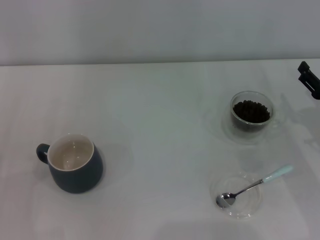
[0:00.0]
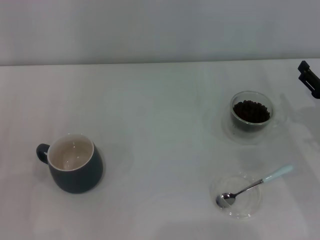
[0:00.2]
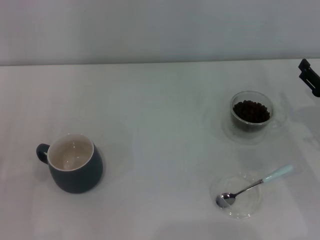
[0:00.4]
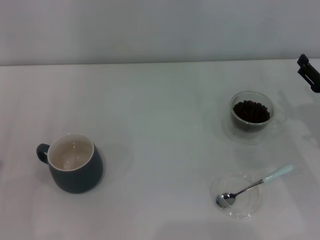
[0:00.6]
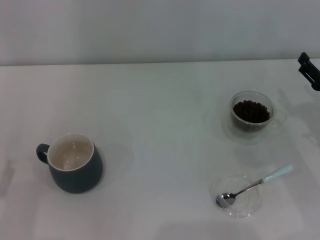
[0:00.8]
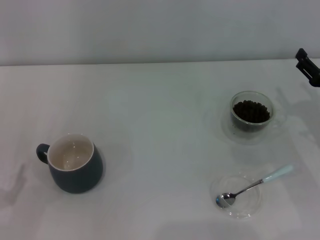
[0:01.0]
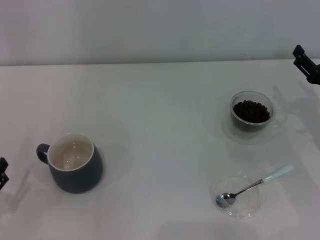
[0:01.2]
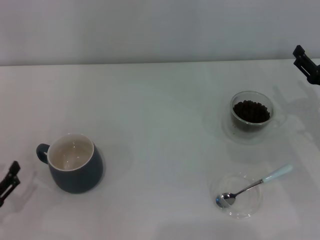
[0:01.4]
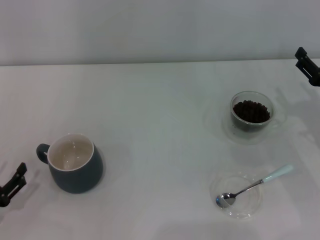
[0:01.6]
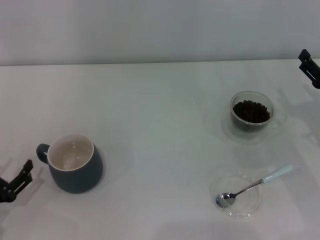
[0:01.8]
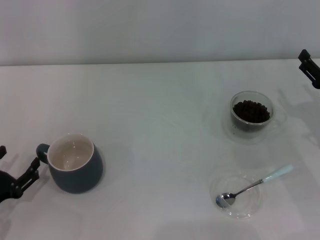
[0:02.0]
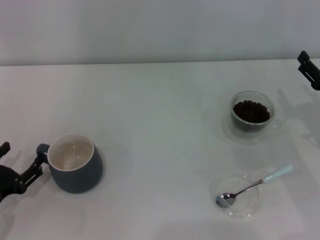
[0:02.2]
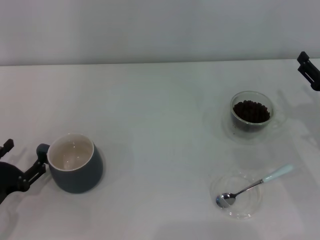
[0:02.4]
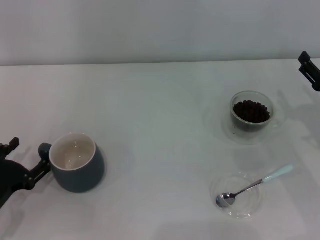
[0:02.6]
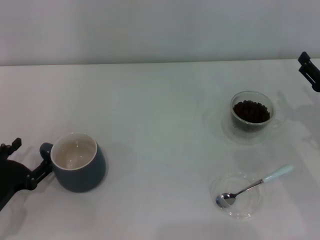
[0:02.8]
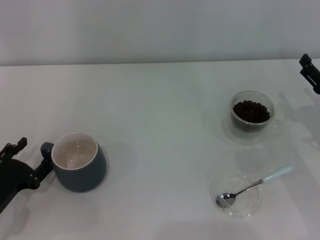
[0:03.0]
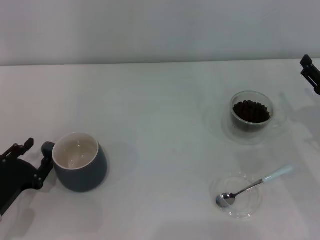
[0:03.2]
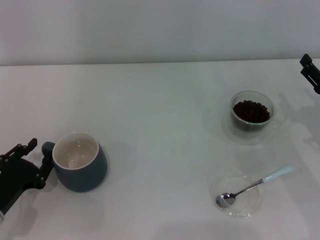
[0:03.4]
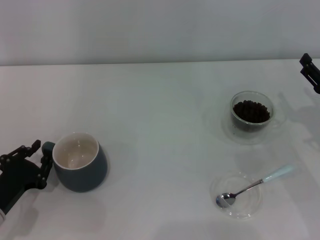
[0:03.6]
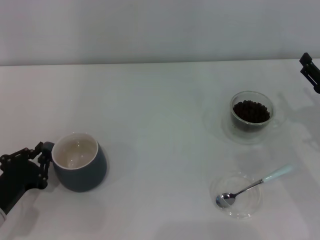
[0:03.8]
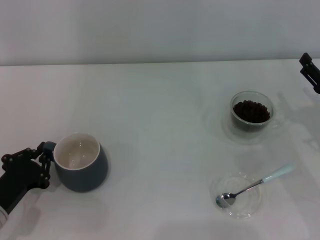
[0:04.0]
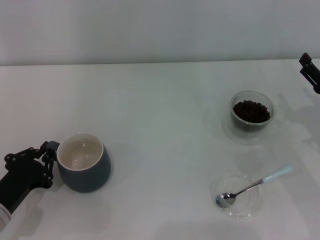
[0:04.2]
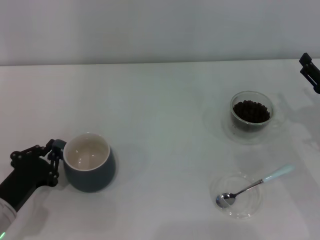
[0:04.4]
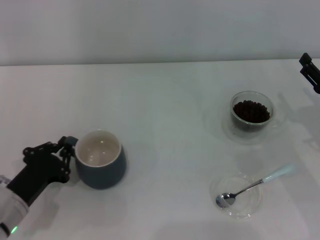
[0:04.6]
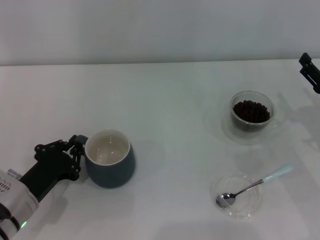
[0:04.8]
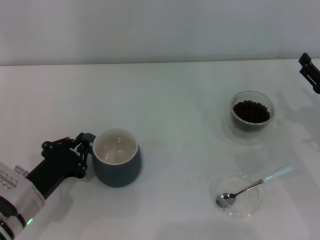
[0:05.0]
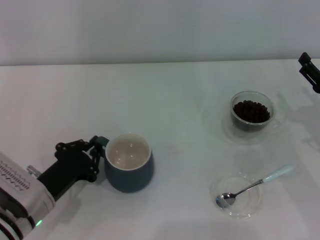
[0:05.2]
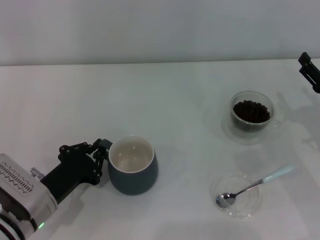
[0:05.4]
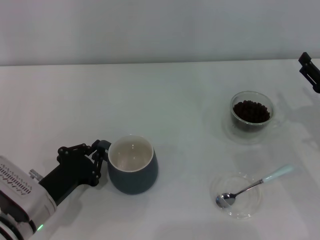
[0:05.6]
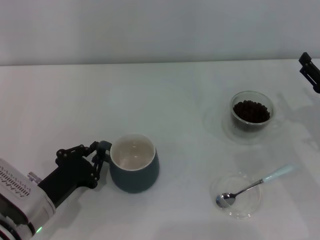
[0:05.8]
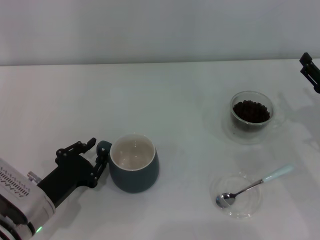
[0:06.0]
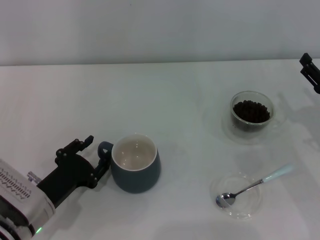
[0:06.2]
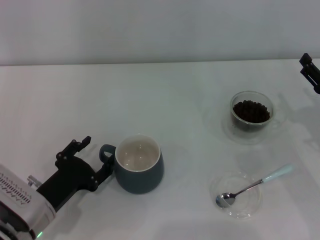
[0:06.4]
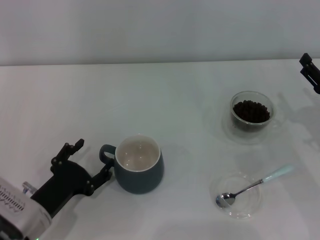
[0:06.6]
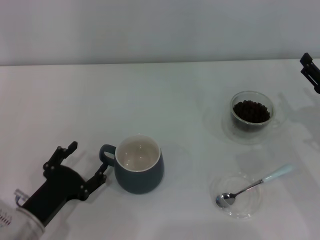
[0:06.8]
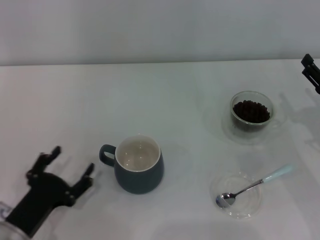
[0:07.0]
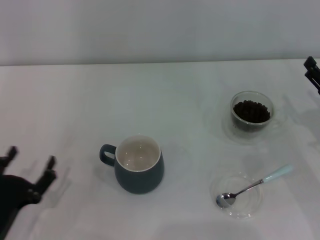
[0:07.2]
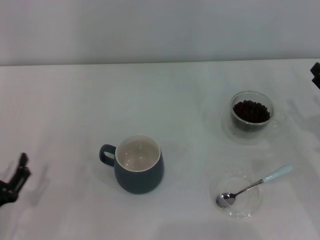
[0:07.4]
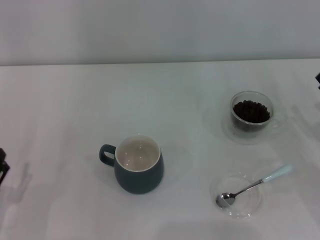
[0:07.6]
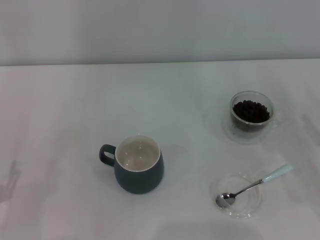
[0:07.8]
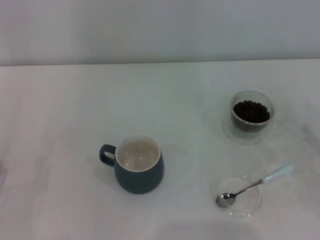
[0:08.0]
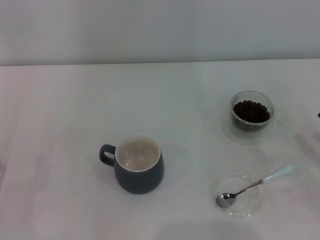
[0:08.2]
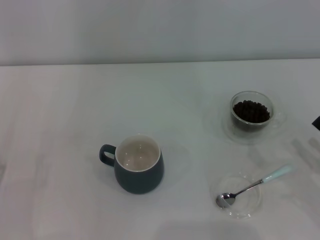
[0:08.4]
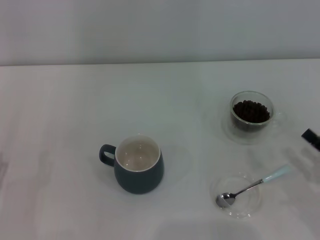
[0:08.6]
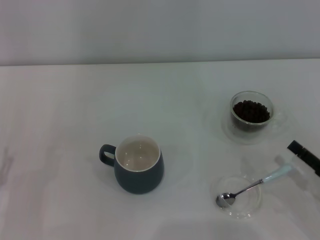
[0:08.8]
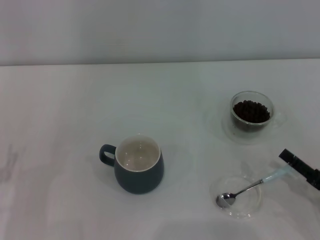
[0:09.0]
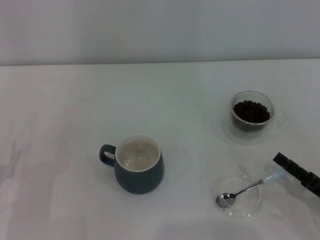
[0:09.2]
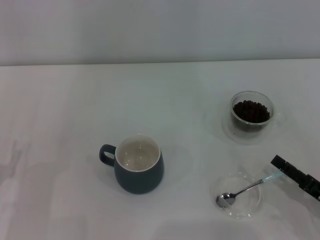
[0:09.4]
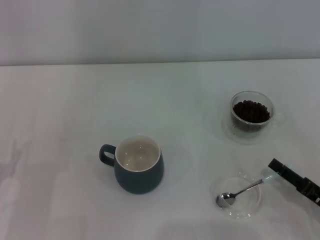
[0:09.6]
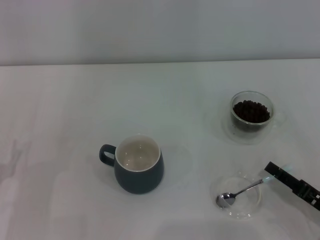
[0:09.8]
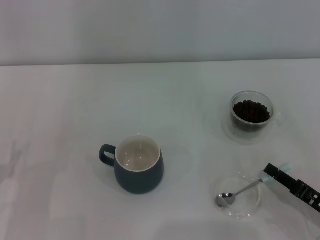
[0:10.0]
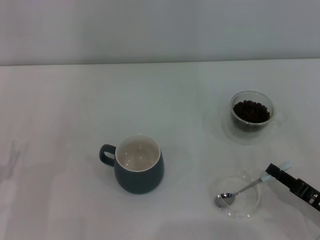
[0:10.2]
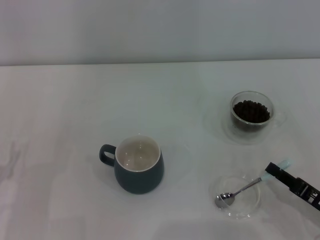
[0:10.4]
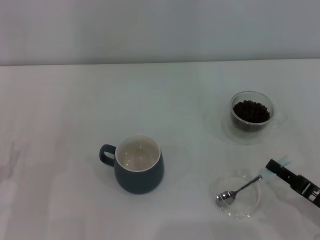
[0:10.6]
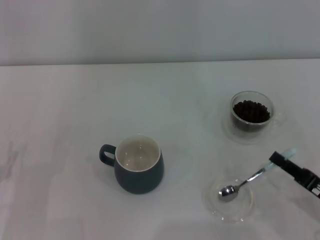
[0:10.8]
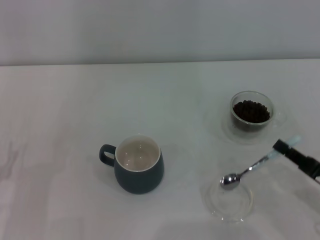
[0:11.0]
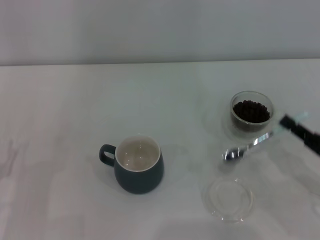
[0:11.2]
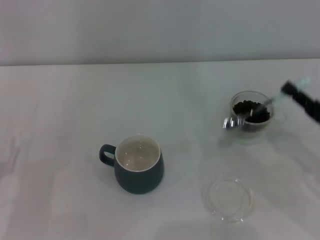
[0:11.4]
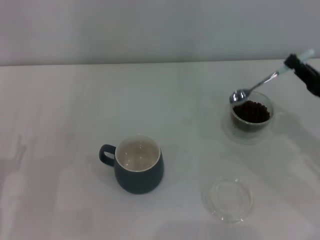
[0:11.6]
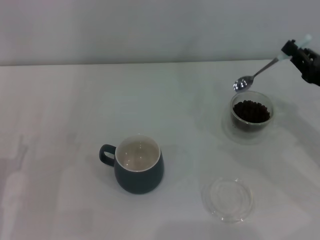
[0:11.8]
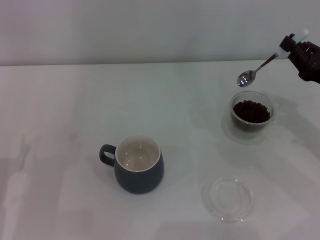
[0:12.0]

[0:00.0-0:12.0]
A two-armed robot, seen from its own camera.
Task of the whole recording: Use a blue spoon to take out the coffee beans from the glass and pour them into the gray cup.
Step, 0:00.0 to 0:06.8: Move the cup to the center of view with the left gripper.
Step, 0:07.0 to 0:10.8: Pick up the spoon with the right gripper.
0:01.6 to 0:03.0: The left gripper shifts by about 5 cm.
0:03.0 to 0:04.4: The left gripper closes up.
0:04.4 to 0:06.0: The left gripper shifts some 5 cm to the right.
0:06.0 to 0:07.6: The left gripper heads to the left and backward, covering some 10 cm, and opens.
0:07.6 to 0:09.0: The right gripper shifts some 10 cm backward.
0:09.0 to 0:10.4: The right gripper closes its fingers.
0:10.4 to 0:12.0: The right gripper travels forward and upward by about 15 cm.

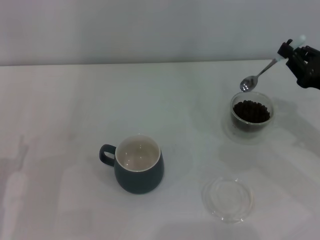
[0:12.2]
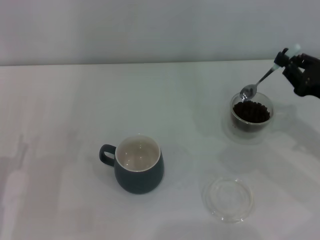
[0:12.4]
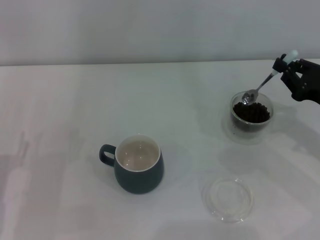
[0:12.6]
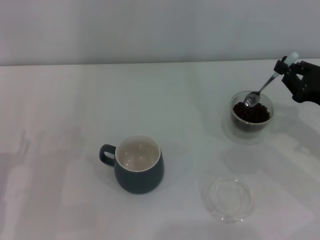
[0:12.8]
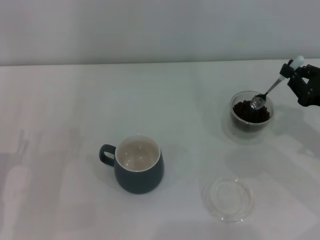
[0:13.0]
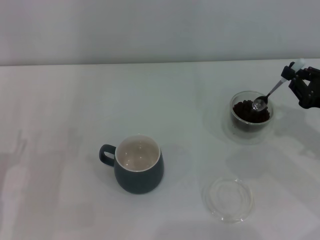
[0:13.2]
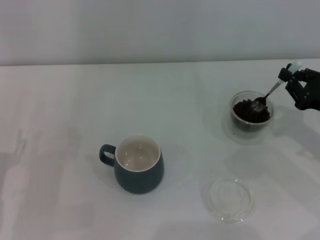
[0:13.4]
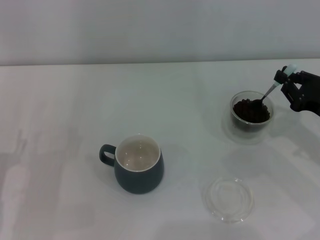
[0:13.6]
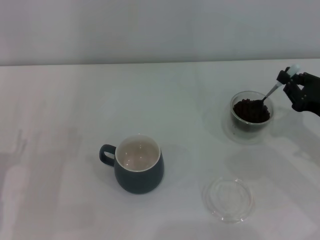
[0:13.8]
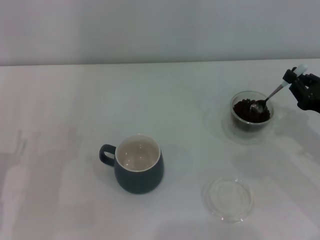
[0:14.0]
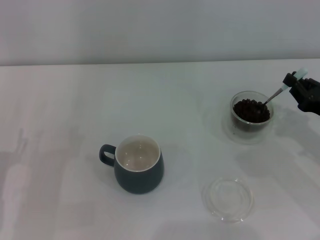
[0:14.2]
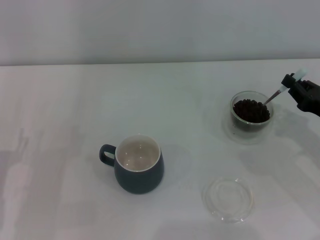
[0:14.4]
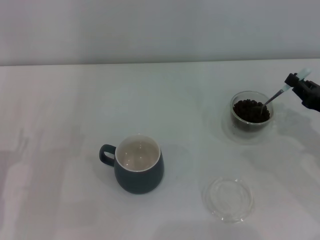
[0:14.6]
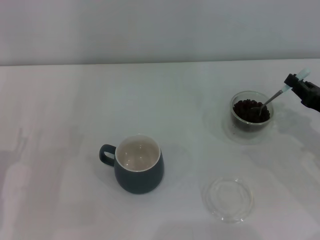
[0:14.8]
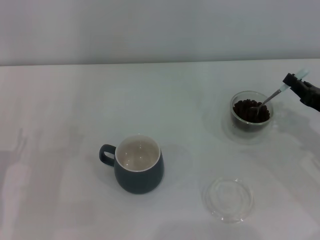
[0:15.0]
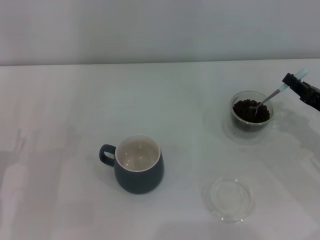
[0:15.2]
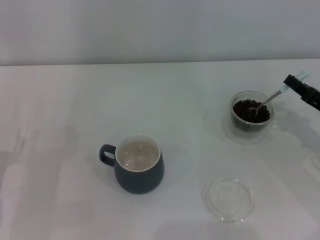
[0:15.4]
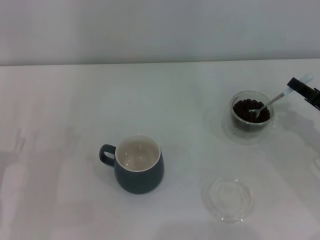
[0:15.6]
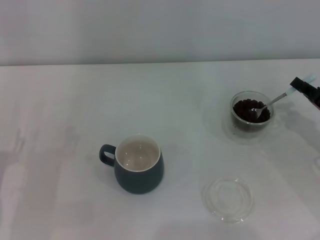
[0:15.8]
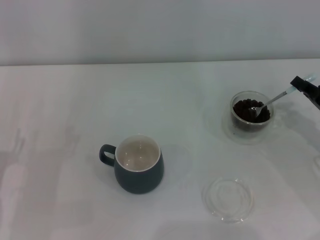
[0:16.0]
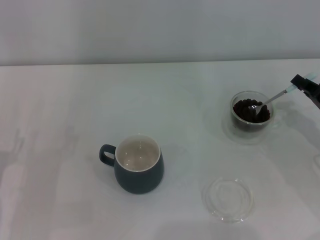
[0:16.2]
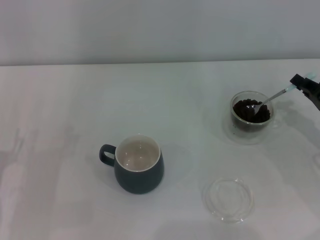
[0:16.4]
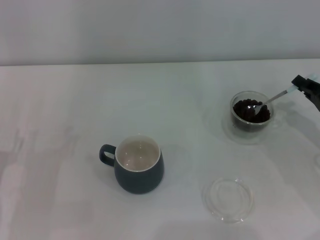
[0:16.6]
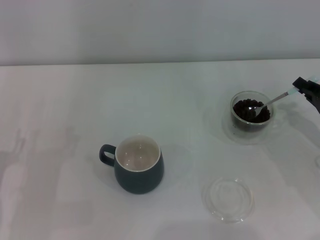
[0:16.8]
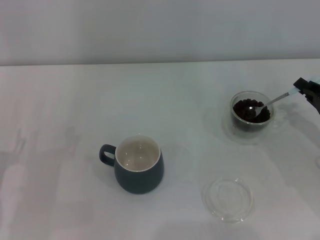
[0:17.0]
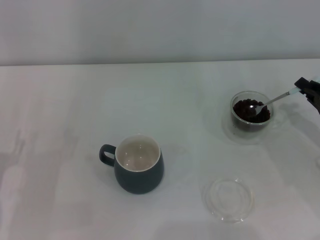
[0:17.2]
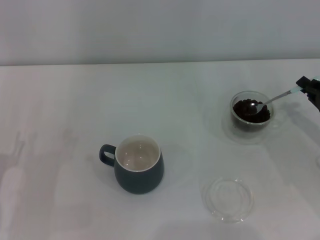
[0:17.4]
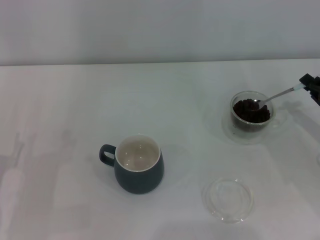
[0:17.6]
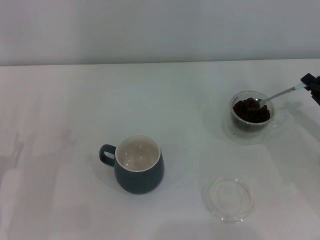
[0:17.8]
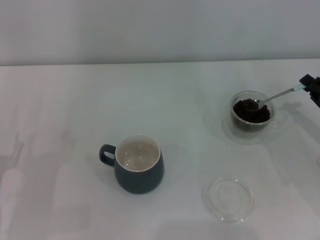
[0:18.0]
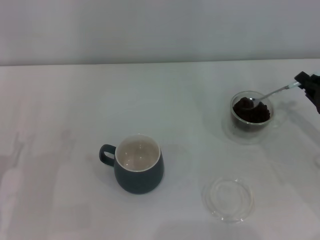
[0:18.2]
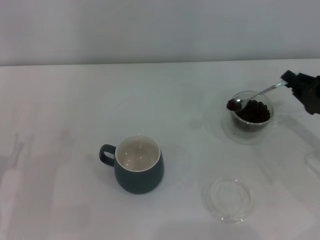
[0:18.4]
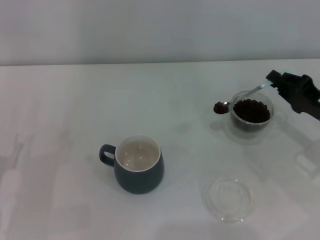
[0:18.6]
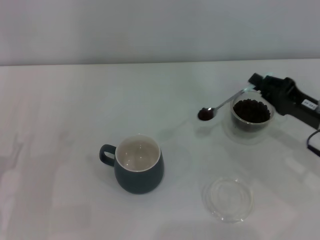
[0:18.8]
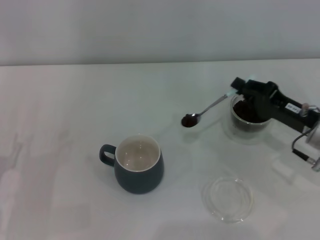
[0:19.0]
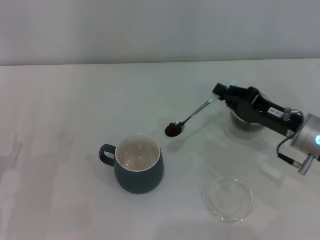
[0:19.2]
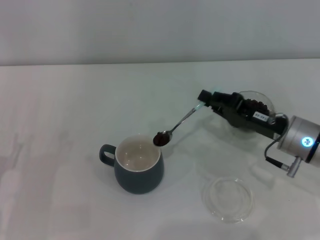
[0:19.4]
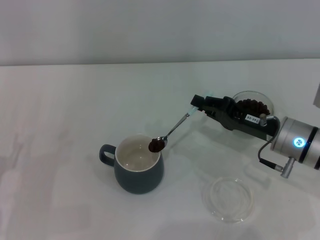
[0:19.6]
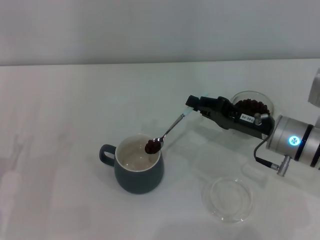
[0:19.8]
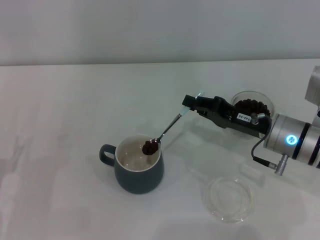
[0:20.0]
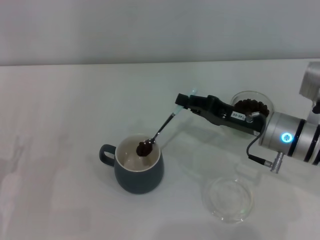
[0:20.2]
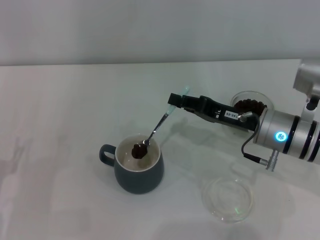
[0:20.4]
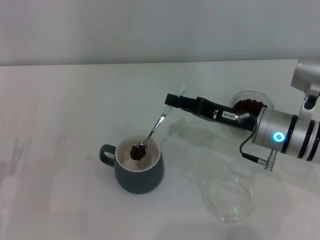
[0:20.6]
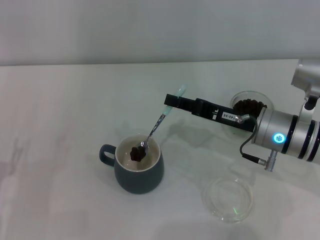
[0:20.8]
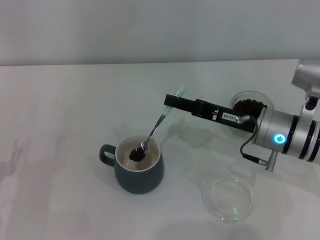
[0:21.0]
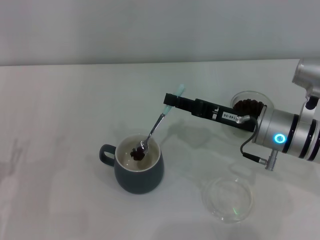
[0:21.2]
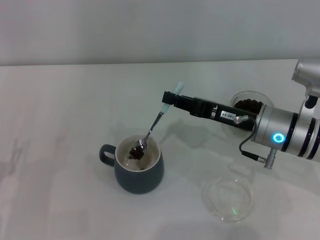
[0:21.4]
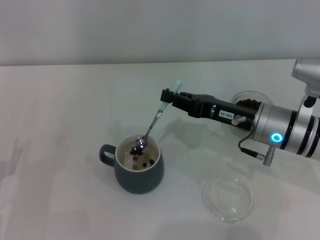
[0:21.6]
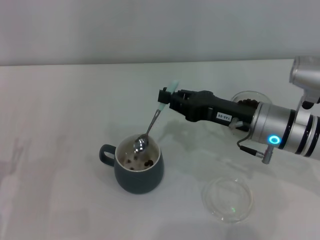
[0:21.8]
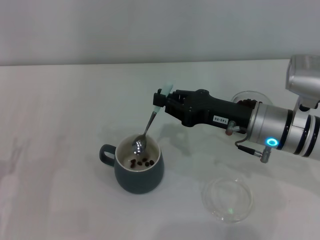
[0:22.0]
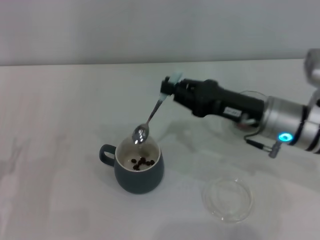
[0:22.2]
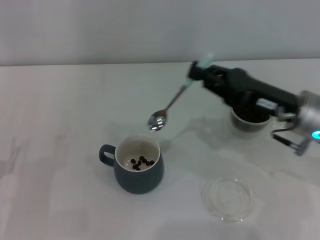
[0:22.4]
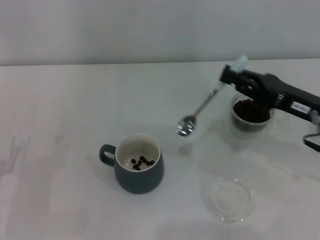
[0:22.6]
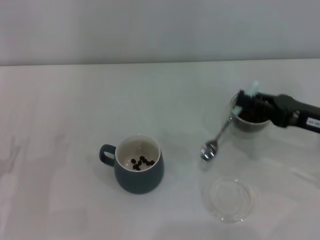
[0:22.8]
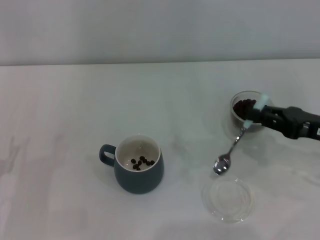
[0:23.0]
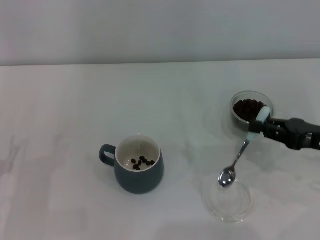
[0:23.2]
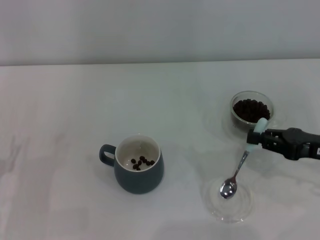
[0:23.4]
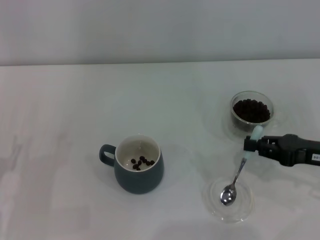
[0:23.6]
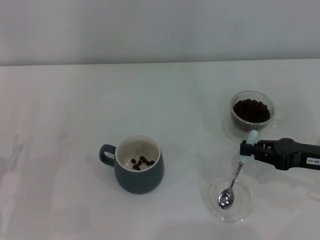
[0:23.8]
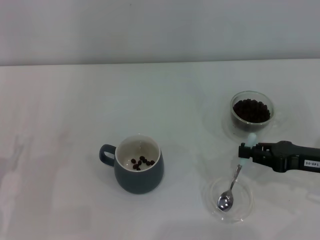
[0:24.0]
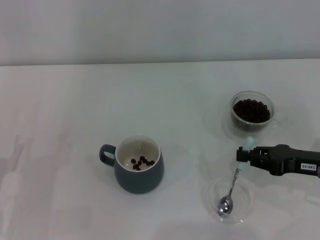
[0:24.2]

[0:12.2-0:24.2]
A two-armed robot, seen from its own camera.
Task of the whole recording: Use a blue spoon to take out the coffee beans from the glass and pour them into the gray cup.
Step, 0:12.2 to 0:22.0: Scoop a spoonful of beans into the cup with the right gripper.
0:12.2 to 0:13.8: The grippers make only small movements.
0:15.2 to 0:16.6: There are only small adjustments of the grippers.
0:18.2 to 0:19.8: The right gripper shifts some 15 cm to the left.
0:19.8 to 0:21.2: The grippers stay close to where they were, moving slightly.
0:21.2 to 0:22.6: The right gripper heads to the right, covering some 10 cm.
0:22.6 to 0:24.2: The right gripper is displaced downward by about 5 cm.
